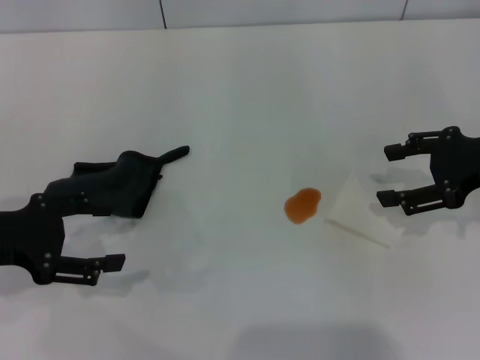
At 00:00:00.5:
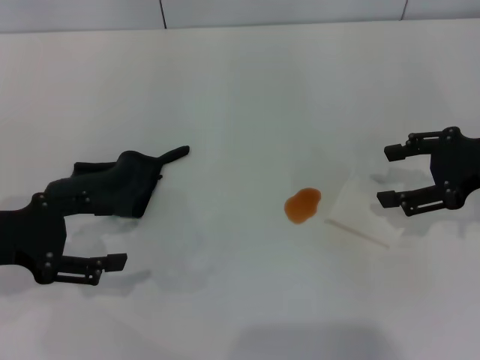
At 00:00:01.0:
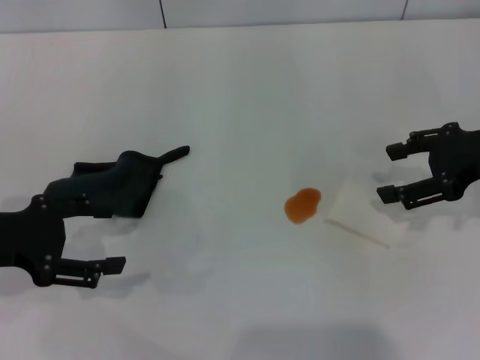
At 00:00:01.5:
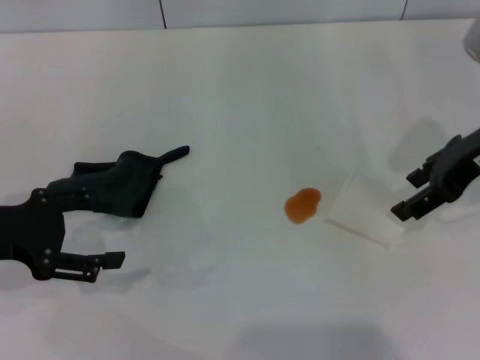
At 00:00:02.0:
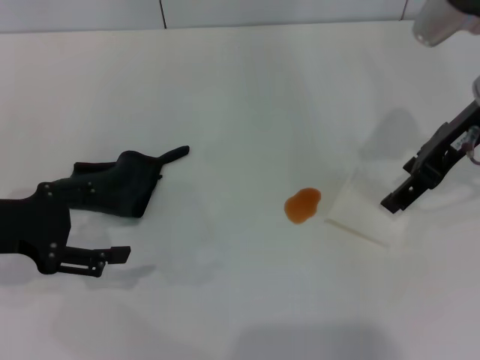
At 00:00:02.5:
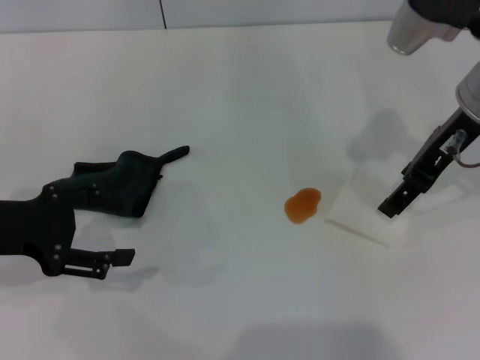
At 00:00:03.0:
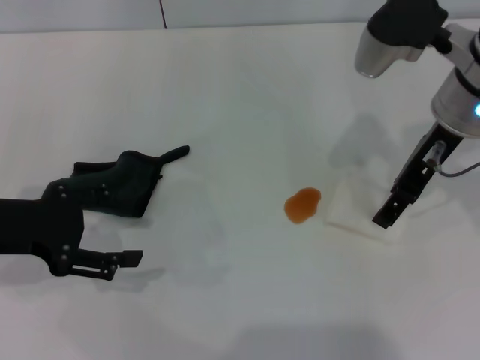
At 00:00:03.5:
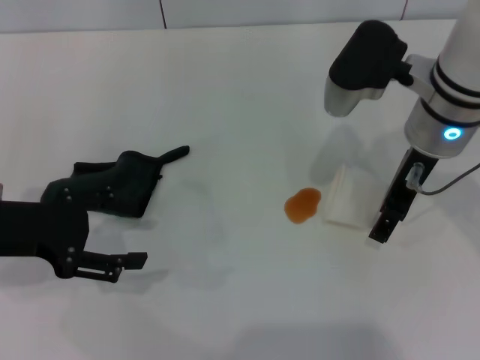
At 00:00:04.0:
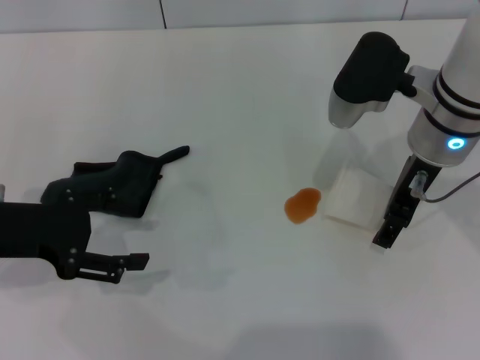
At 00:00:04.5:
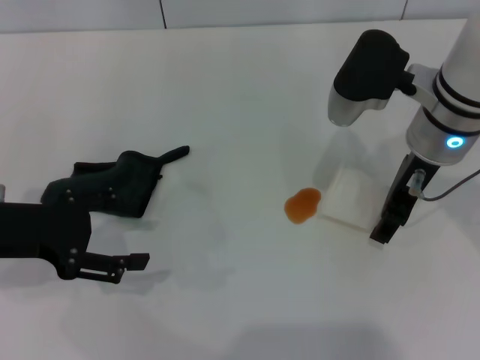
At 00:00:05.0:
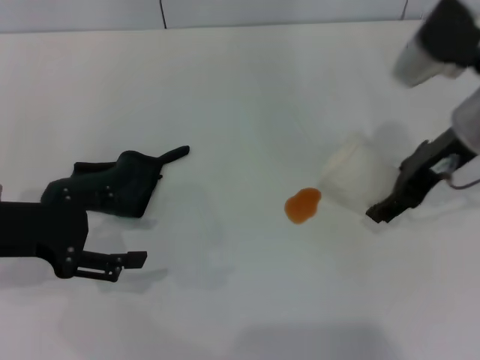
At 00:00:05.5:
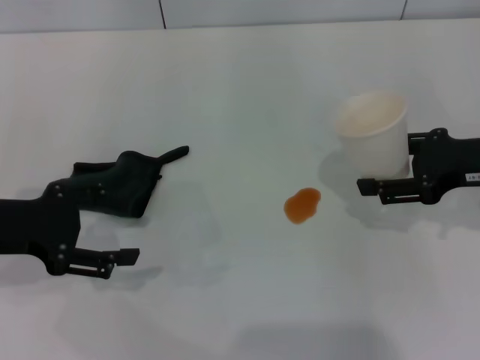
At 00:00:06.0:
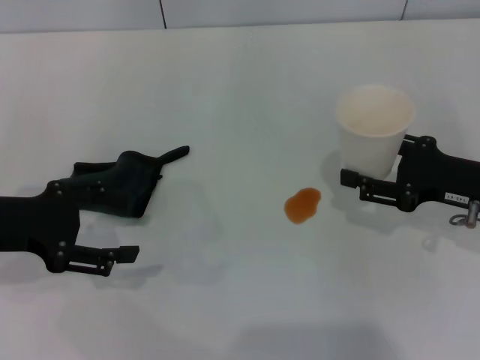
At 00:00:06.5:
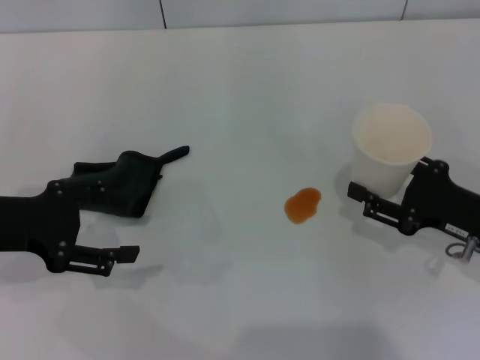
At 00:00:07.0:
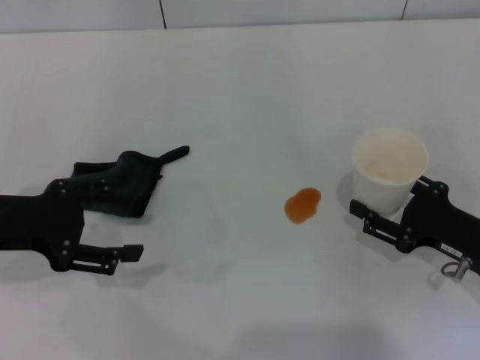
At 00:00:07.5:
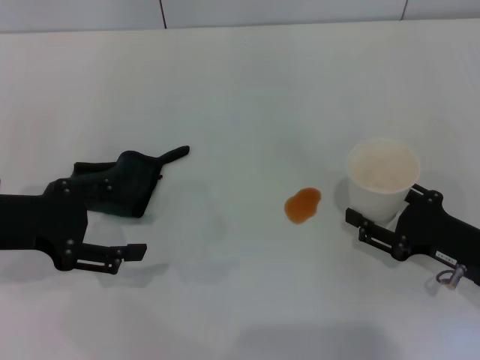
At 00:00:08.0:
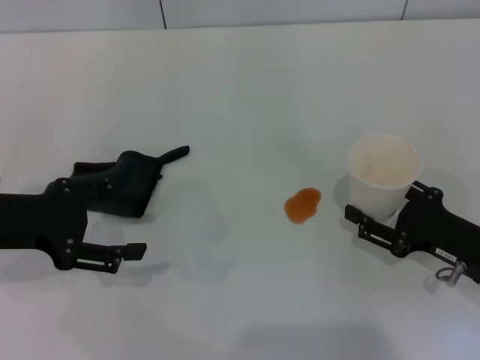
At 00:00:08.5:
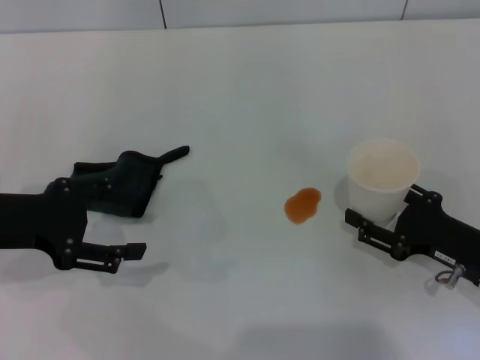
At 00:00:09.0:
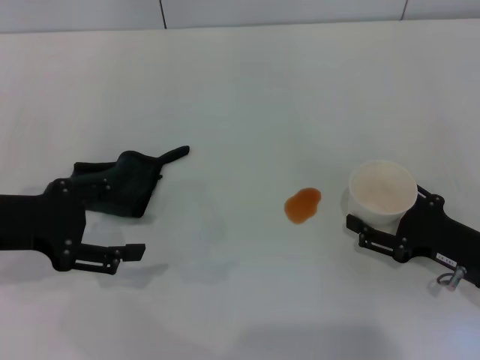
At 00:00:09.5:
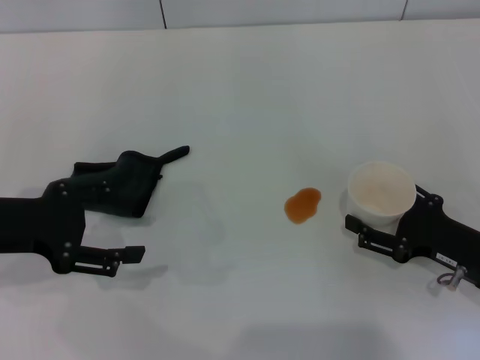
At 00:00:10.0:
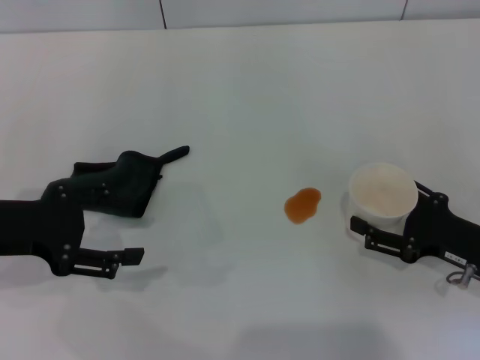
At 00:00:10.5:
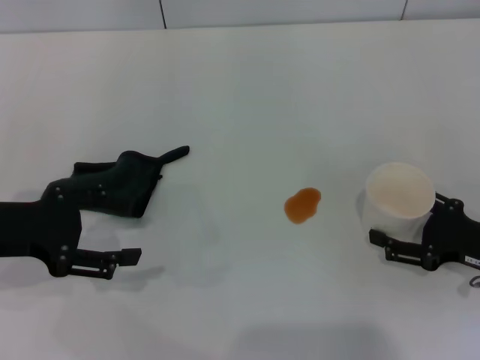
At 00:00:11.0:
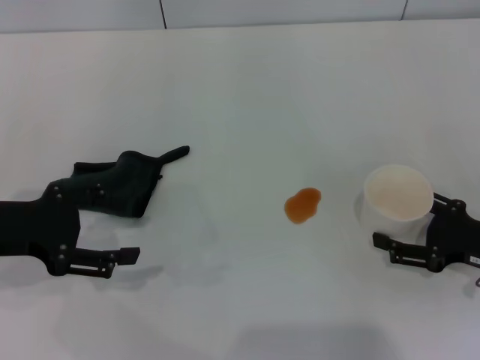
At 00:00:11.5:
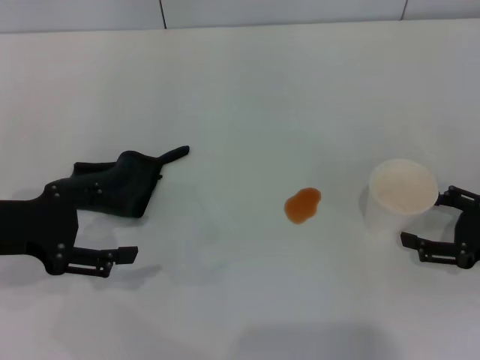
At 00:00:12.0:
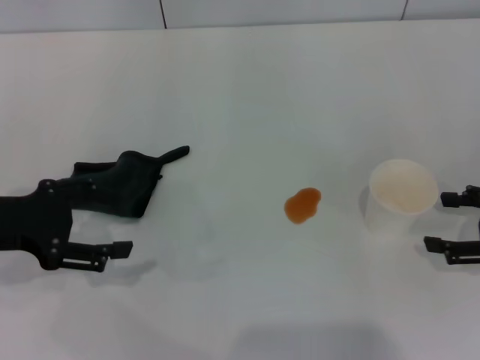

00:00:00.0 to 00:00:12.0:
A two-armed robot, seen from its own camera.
Step, 00:00:00.0 to 00:00:04.0: Grasp the paper cup with the right gripper.
Step, 00:00:04.5 to 00:00:11.5: Stand the paper cup upright with the right gripper.
00:00:00.0 to 00:00:02.0: The right gripper moves to the left and upward, roughly 10 cm.
00:00:02.0 to 00:00:04.0: The right gripper is displaced to the left by roughly 5 cm, and opens.
00:00:04.0 to 00:00:06.0: The right gripper shifts some 15 cm to the right, downward and backward, and closes its fingers.
00:00:06.0 to 00:00:08.0: The right gripper shifts roughly 10 cm downward and backward.
00:00:08.0 to 00:00:10.0: The right gripper opens up.
00:00:10.0 to 00:00:12.0: The right gripper is displaced to the right and upward by roughly 10 cm.

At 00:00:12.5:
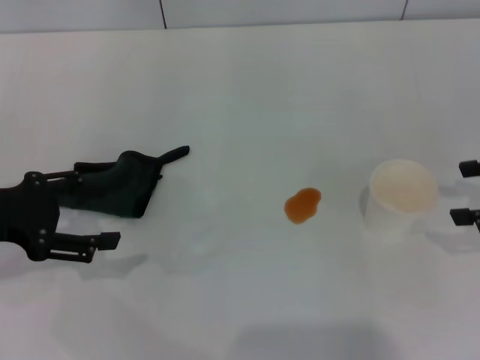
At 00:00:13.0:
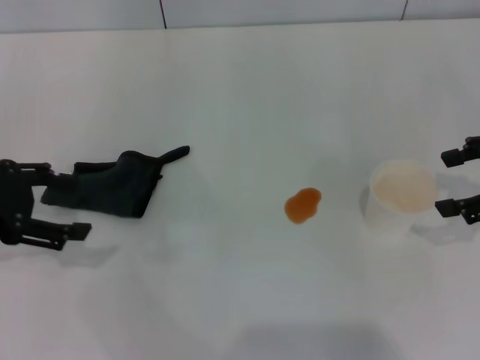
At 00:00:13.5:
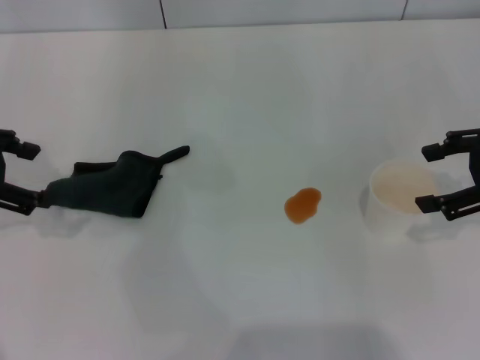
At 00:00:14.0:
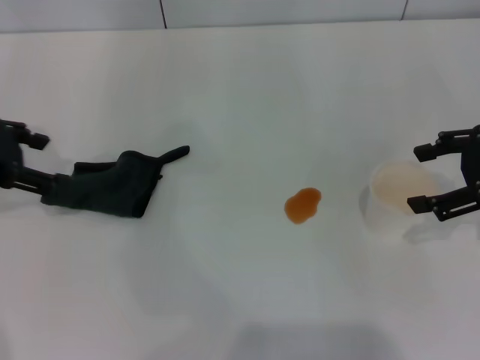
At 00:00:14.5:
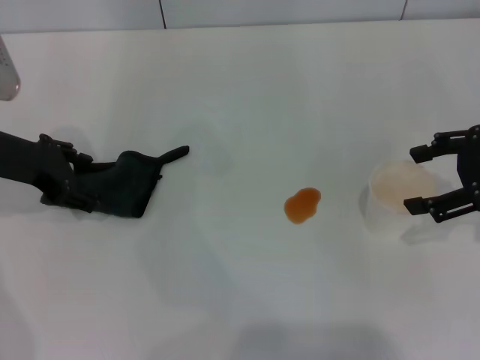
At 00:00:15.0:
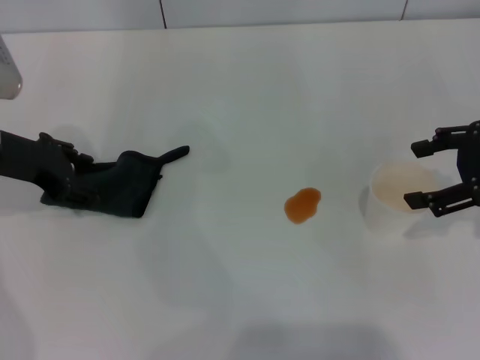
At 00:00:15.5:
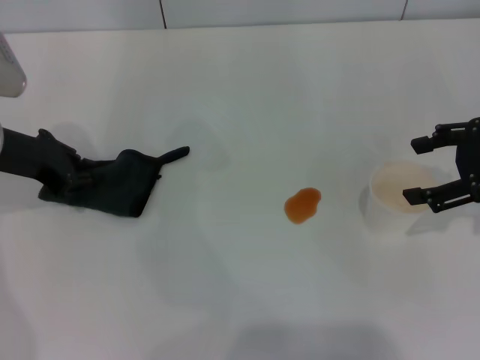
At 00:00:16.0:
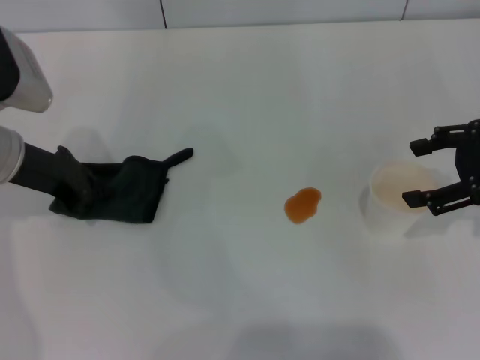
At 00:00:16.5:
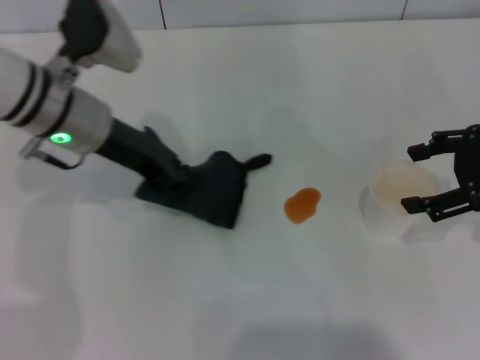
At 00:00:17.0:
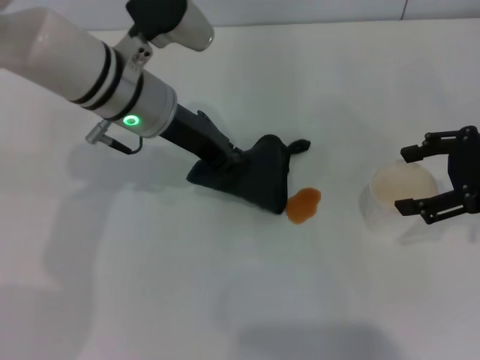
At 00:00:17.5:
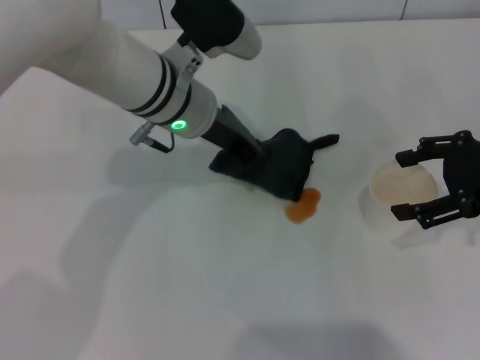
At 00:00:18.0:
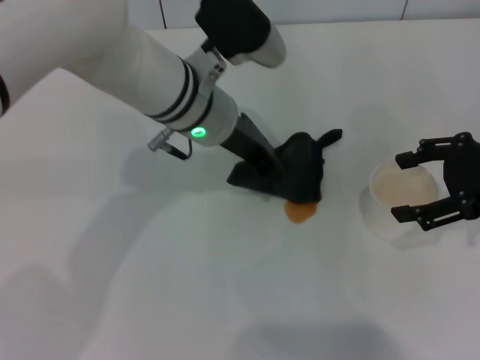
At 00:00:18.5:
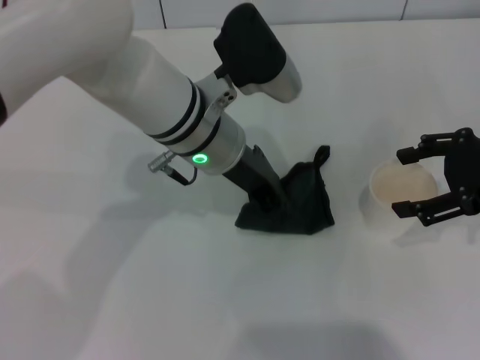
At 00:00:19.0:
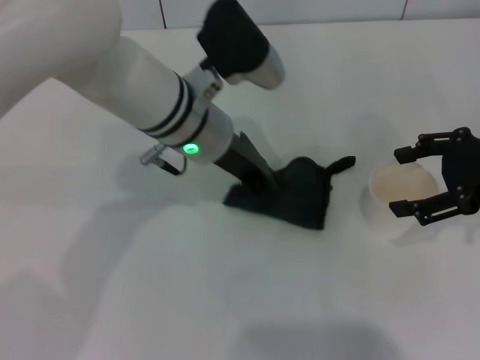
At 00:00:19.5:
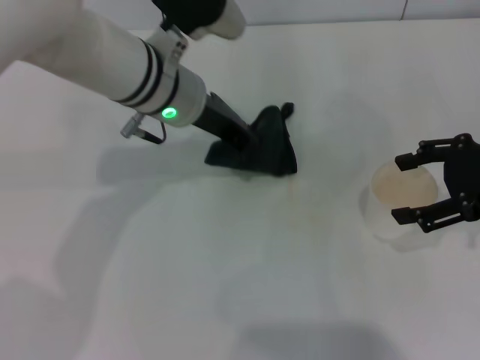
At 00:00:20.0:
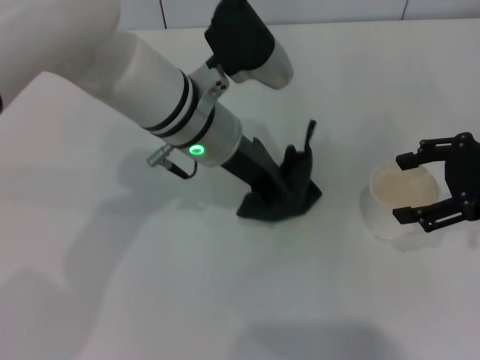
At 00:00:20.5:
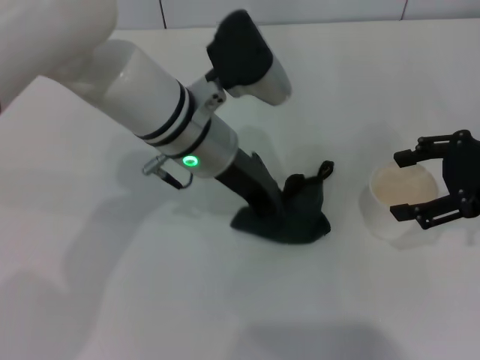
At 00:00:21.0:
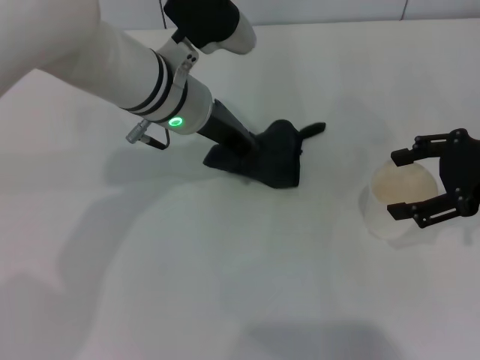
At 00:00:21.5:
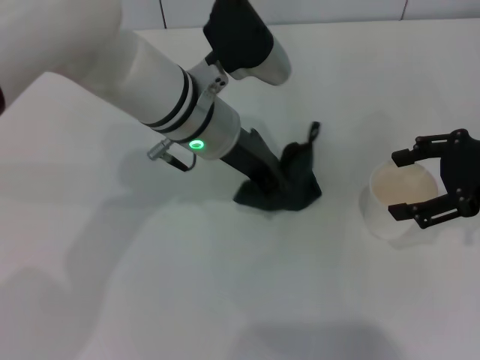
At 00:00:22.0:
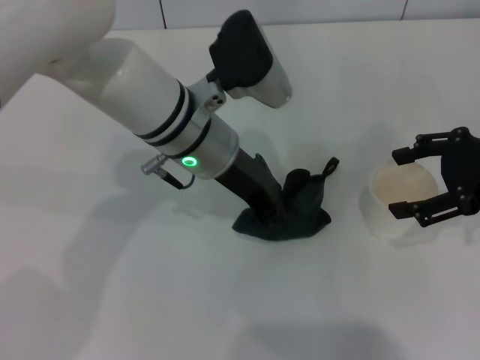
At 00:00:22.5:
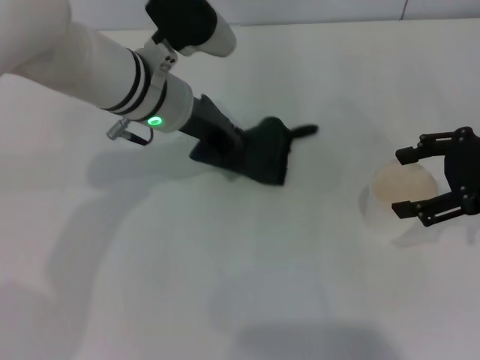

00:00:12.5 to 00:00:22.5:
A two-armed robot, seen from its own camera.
Step, 00:00:12.5 to 00:00:16.0: Grasp the rag with the left gripper.
00:00:12.5 to 00:00:14.5: The right gripper travels to the left by roughly 5 cm; the left gripper is displaced forward by approximately 10 cm.
00:00:14.5 to 00:00:16.5: The left gripper moves to the right, about 10 cm, and closes up.
00:00:16.5 to 00:00:18.5: The left gripper moves to the right, about 10 cm.
00:00:18.5 to 00:00:20.5: The grippers move only a little.
00:00:20.5 to 00:00:22.5: The left gripper changes place by approximately 5 cm.

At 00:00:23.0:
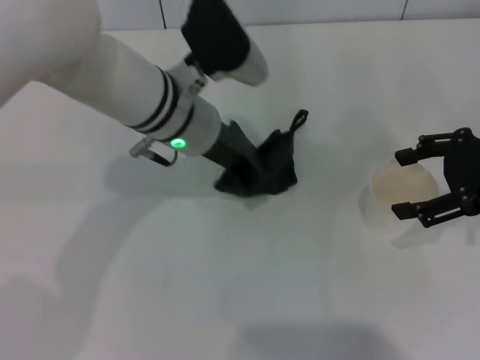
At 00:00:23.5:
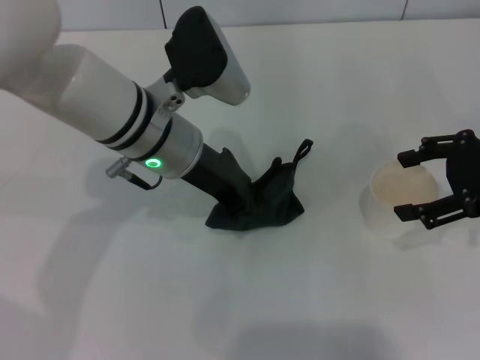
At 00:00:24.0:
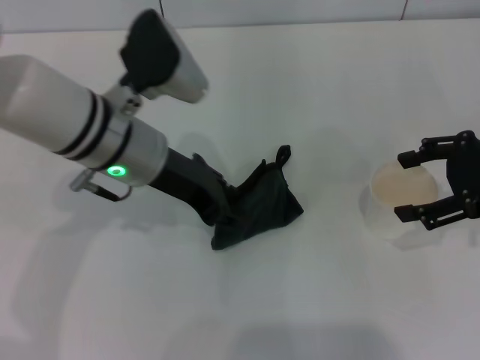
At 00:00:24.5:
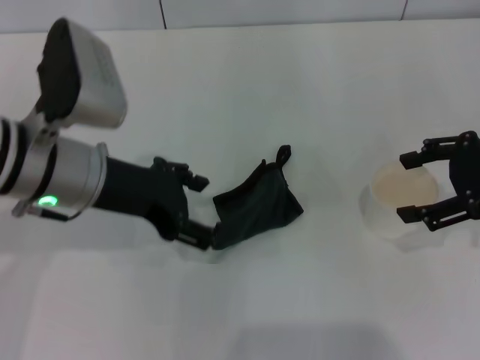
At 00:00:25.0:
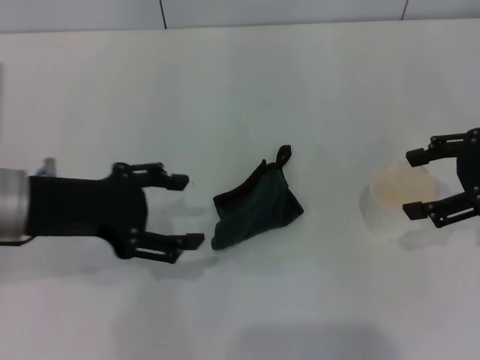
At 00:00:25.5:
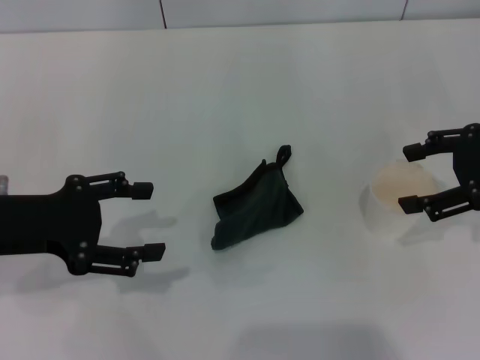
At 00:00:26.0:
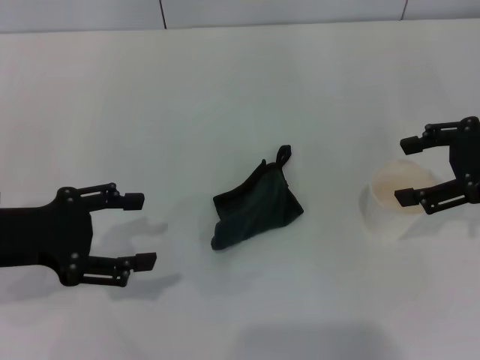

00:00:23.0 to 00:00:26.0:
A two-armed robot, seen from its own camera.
Step, 00:00:24.0 to 00:00:24.5: Place the rag on the table with the left gripper.
00:00:23.0 to 00:00:24.5: The left gripper moves to the left and backward, approximately 10 cm, and opens.
00:00:24.5 to 00:00:26.0: The left gripper travels to the left and backward by roughly 10 cm.
